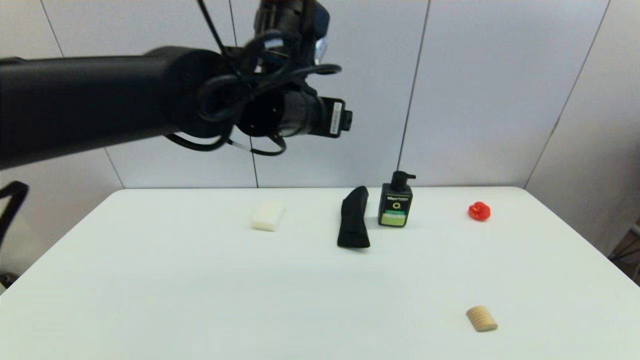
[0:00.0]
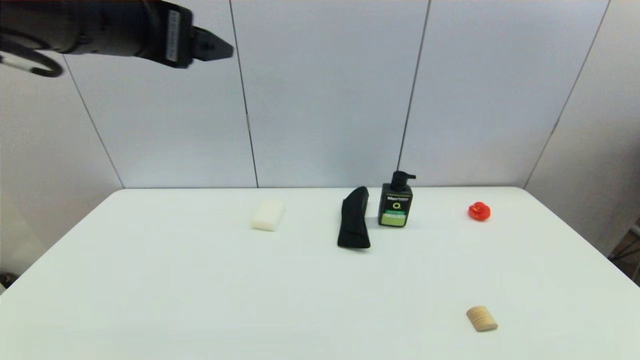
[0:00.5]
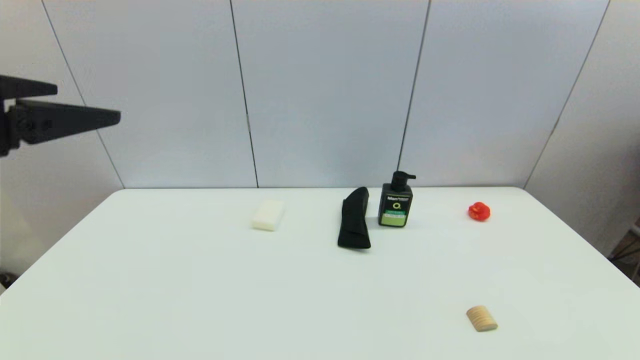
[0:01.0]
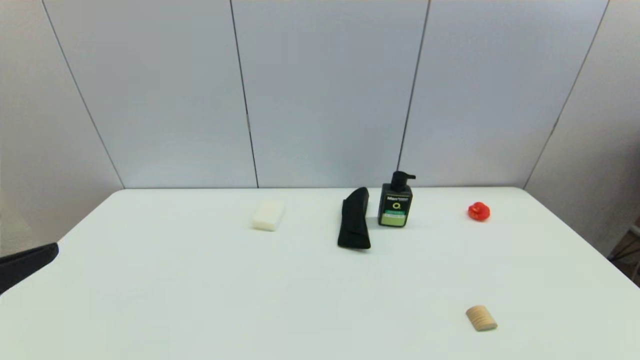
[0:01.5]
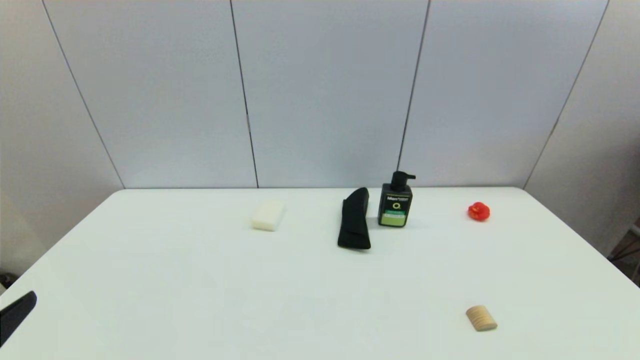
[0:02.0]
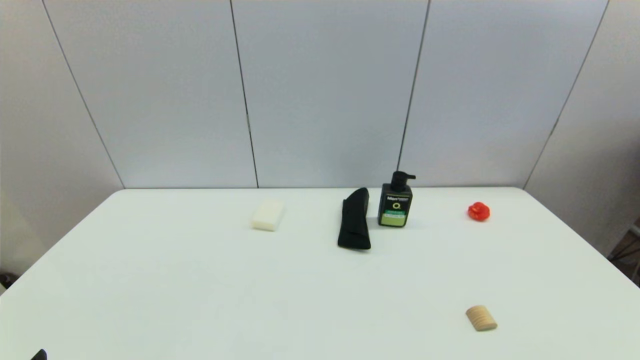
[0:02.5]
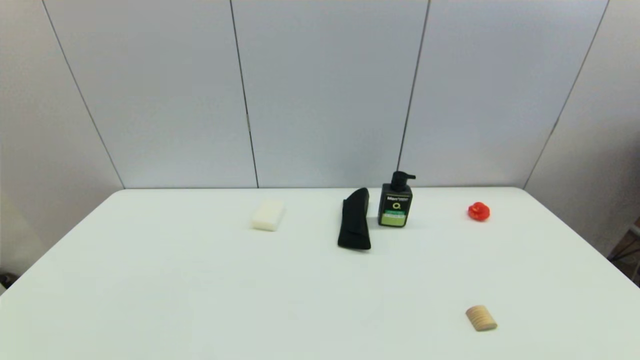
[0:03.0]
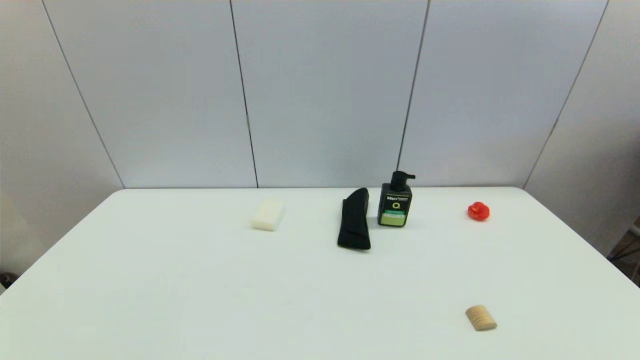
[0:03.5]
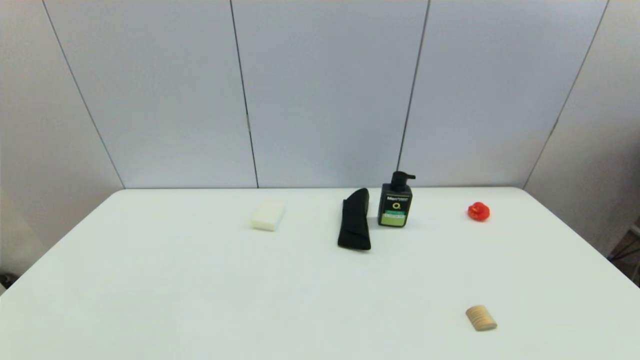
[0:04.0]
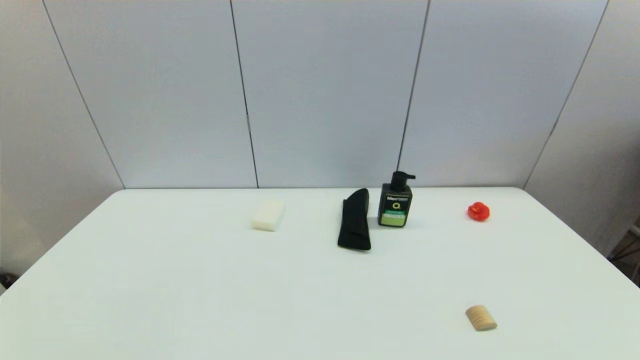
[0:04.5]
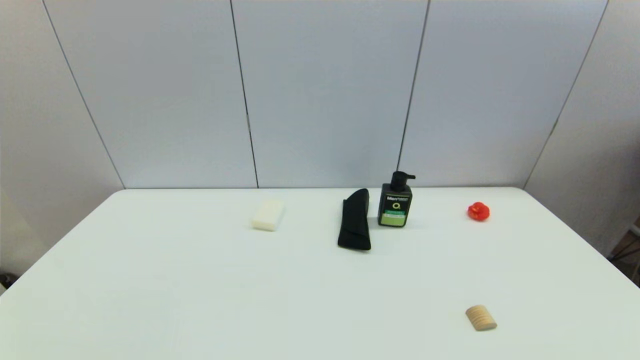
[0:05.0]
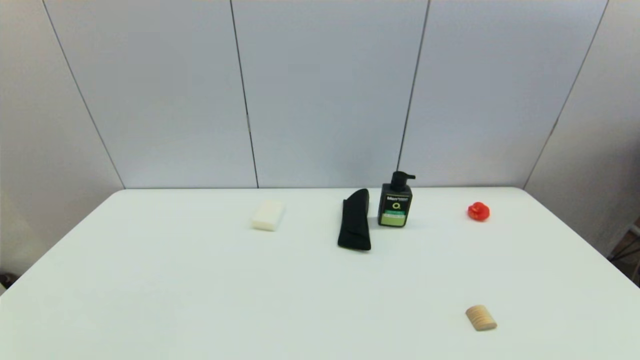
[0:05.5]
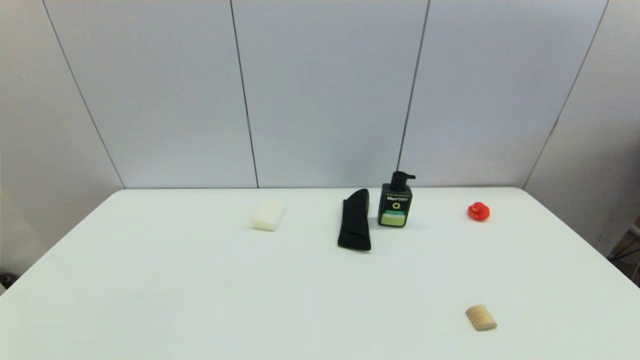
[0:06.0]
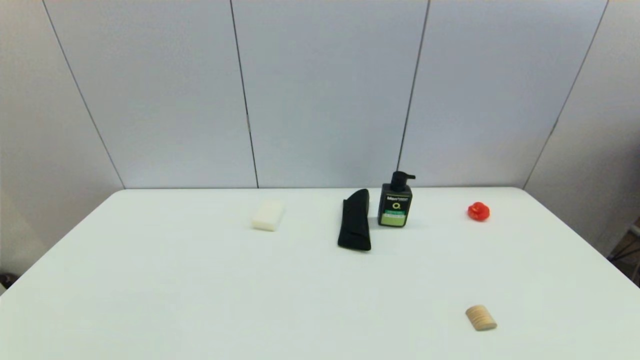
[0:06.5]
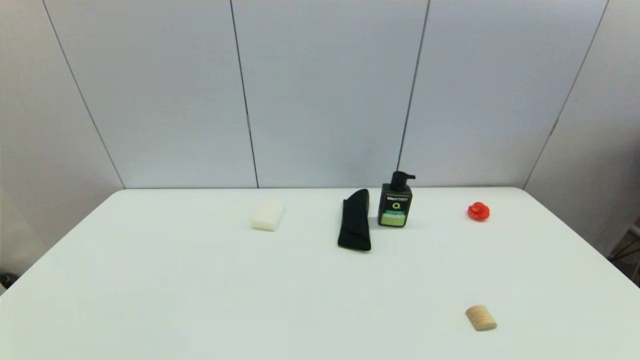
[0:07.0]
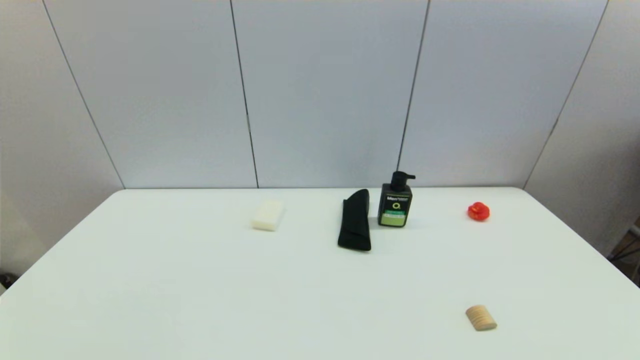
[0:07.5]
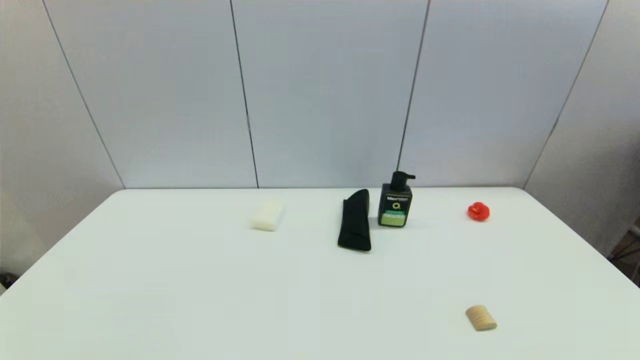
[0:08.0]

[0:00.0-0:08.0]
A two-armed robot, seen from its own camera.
0:00.0 to 0:02.0: The left gripper travels backward and to the left by approximately 40 cm.
0:04.0 to 0:06.0: The two grippers keep their place.
0:06.0 to 0:08.0: The two grippers keep their place.
